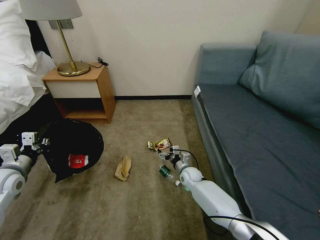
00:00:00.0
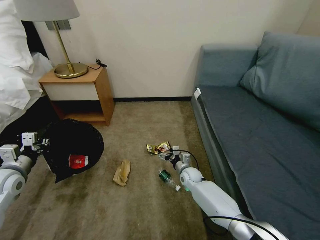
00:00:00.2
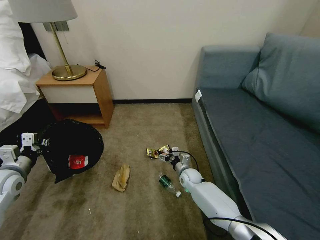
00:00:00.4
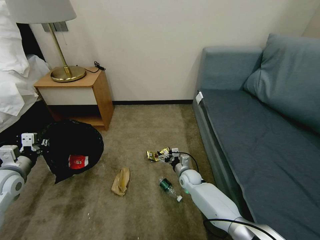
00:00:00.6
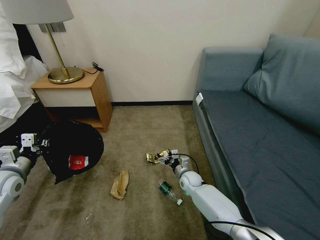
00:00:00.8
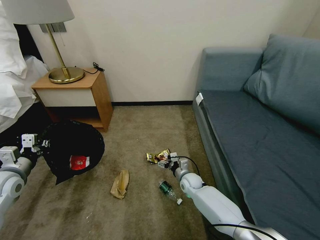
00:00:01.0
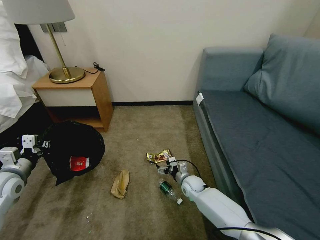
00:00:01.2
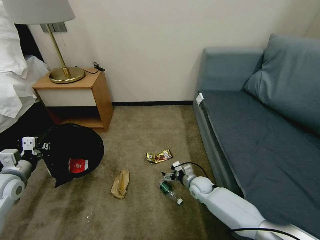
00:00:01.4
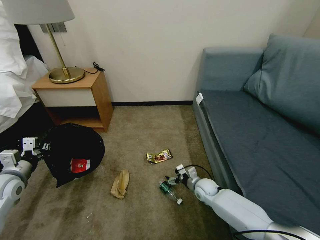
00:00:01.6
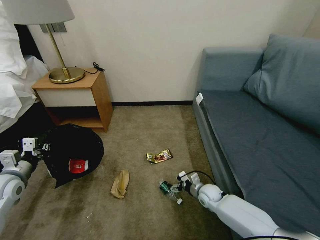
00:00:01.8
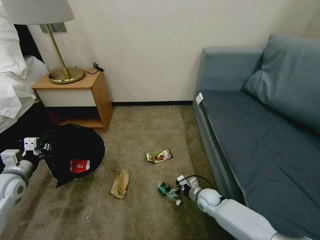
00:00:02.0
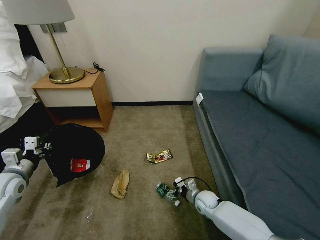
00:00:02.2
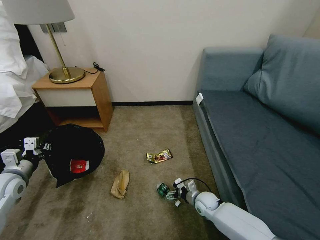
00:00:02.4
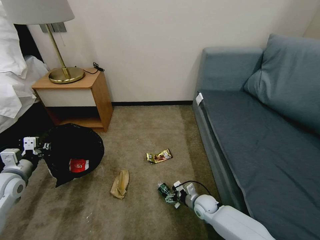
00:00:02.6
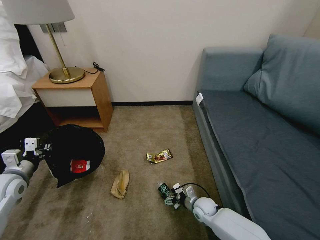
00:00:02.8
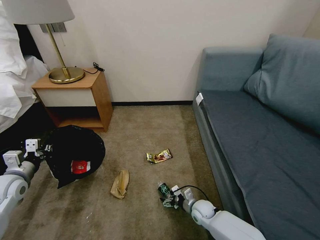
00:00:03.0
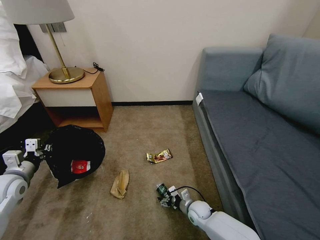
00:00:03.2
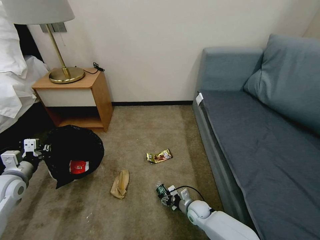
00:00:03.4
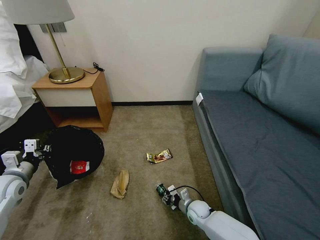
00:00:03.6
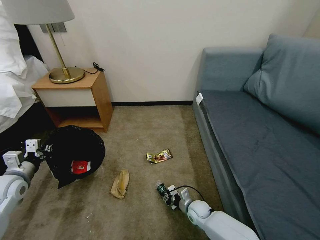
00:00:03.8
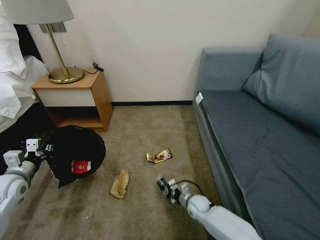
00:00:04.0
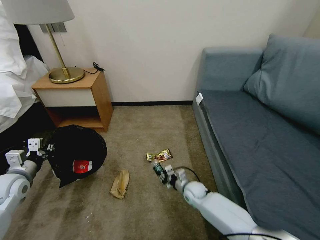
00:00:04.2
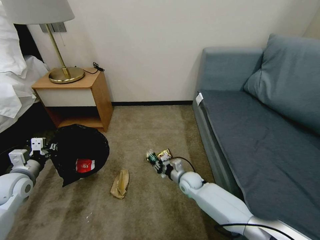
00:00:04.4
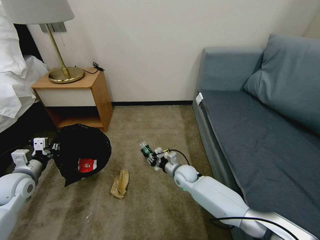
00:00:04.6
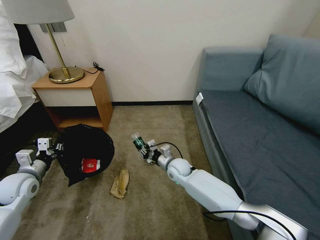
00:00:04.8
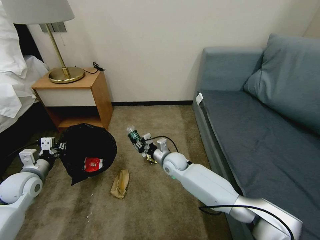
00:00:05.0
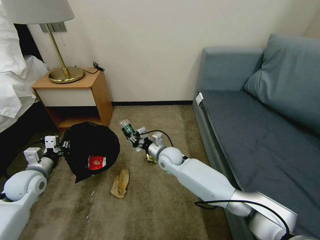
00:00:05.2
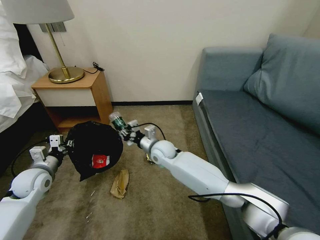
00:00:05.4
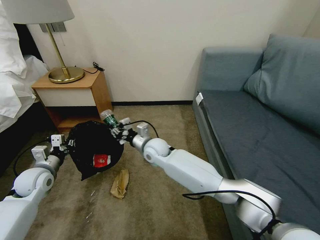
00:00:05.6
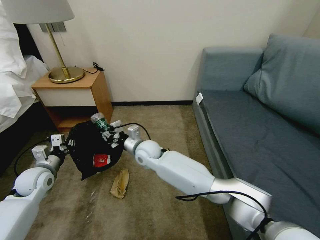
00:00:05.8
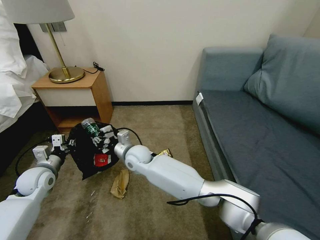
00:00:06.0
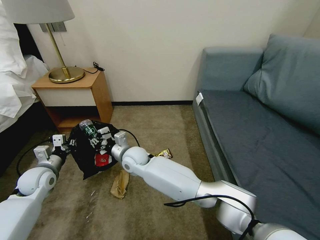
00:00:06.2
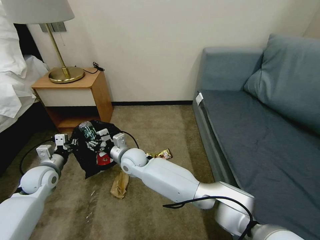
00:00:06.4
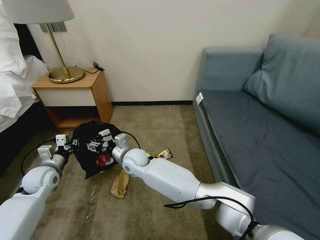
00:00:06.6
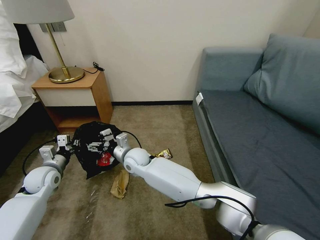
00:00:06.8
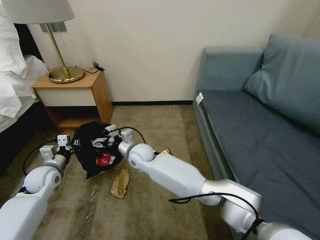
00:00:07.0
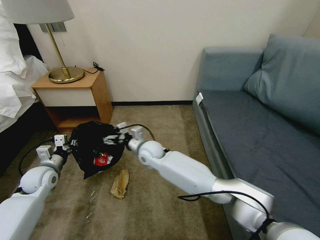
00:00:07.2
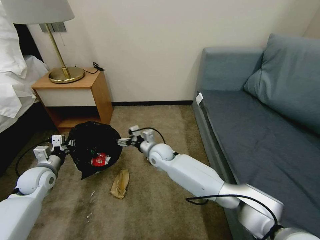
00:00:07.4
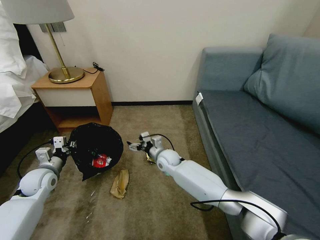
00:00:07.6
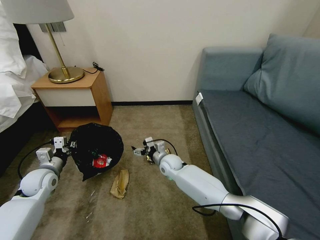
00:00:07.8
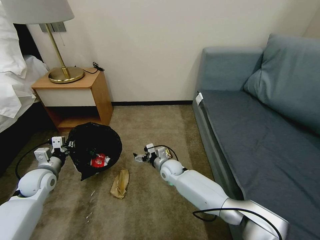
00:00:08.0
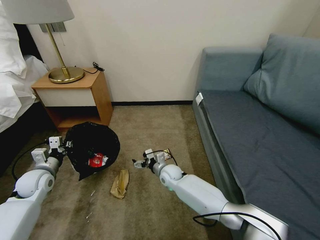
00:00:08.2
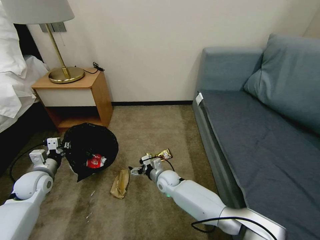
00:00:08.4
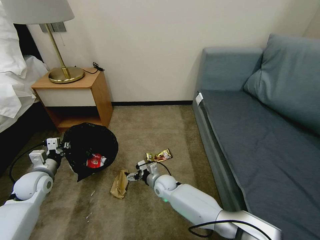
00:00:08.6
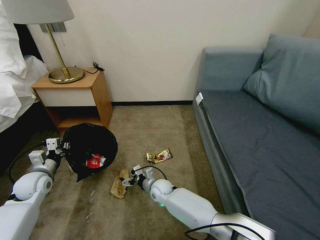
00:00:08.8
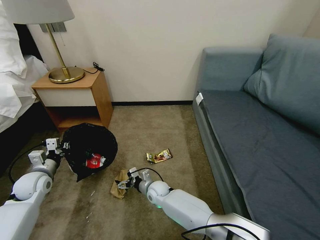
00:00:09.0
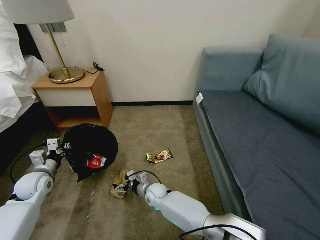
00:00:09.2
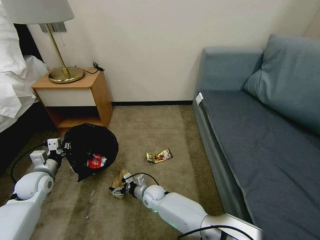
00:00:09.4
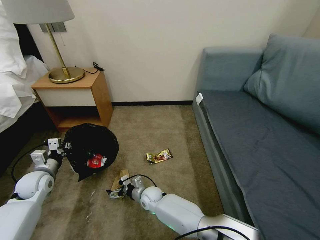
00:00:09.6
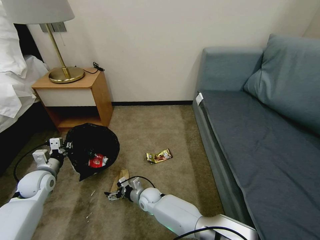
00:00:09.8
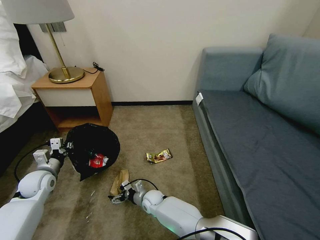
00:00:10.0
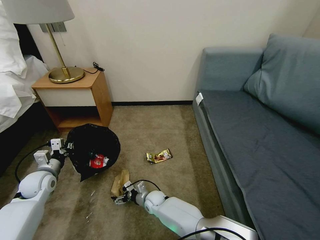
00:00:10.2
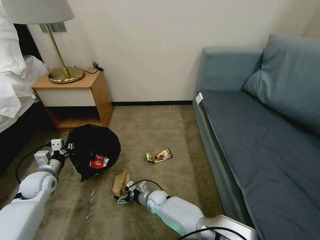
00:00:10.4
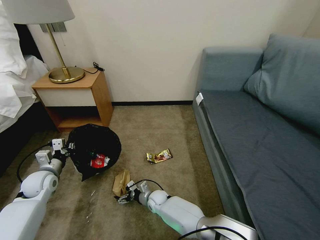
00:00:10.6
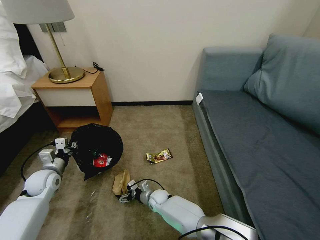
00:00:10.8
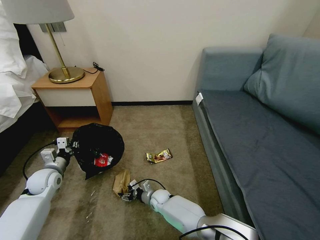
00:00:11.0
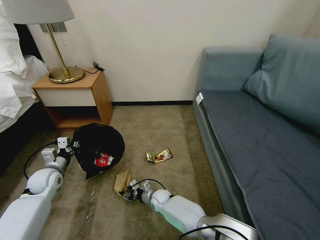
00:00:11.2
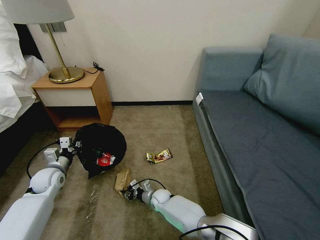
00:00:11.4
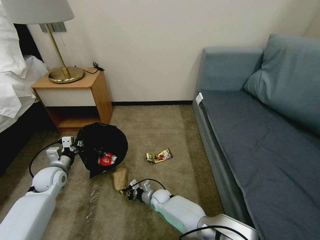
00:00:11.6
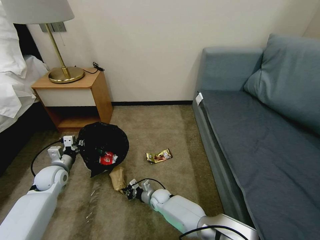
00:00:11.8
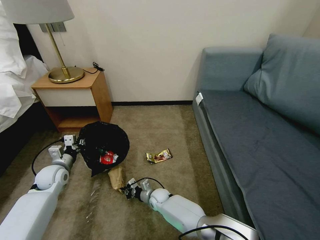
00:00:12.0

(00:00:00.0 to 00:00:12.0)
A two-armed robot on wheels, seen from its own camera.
Task of the whole recording: Pick up the trash bin, then pick up the garbage on the floor and place it into the trash bin.
00:00:00.0 - 00:00:01.6: The right gripper heads to the right and backward, covering some 10 cm.
00:00:01.6 - 00:00:03.0: The right gripper goes roughly 10 cm backward and downward.
00:00:03.0 - 00:00:04.4: The right gripper goes approximately 15 cm forward, upward and to the left, and closes.
00:00:04.4 - 00:00:06.0: The left gripper ends up about 5 cm from where it was, while the right gripper heads to the left and upward, covering approximately 25 cm.
00:00:06.0 - 00:00:07.6: The right gripper goes about 15 cm to the right and downward, and opens.
00:00:07.6 - 00:00:09.0: The right gripper moves downward and backward, roughly 15 cm.
00:00:09.0 - 00:00:10.4: The right gripper heads downward, covering approximately 5 cm.
00:00:10.4 - 00:00:12.0: The right gripper closes up.

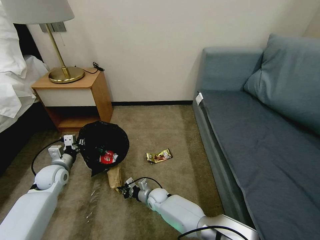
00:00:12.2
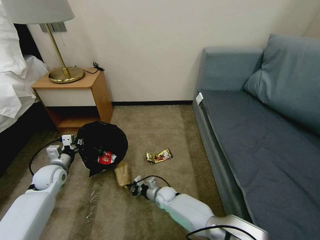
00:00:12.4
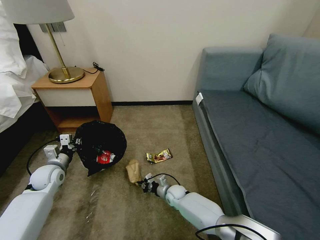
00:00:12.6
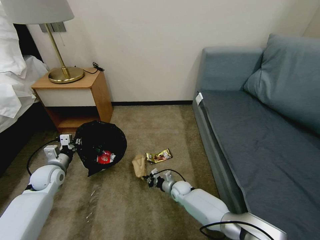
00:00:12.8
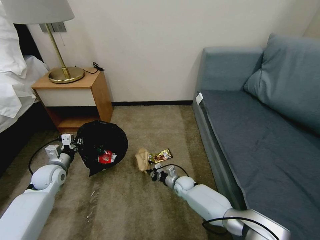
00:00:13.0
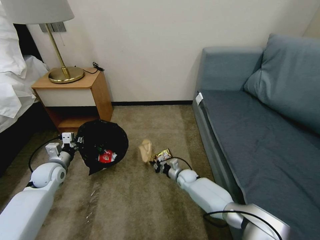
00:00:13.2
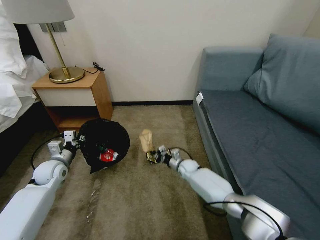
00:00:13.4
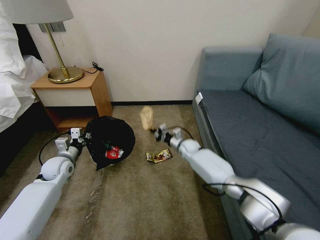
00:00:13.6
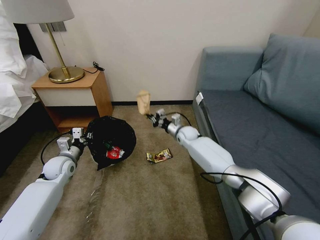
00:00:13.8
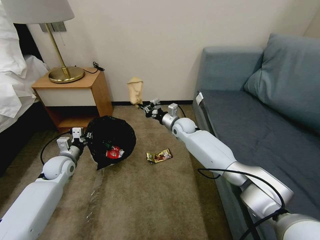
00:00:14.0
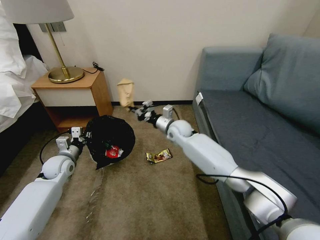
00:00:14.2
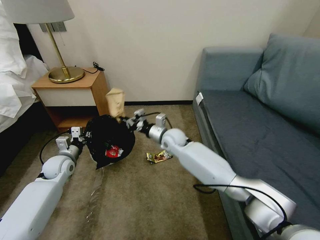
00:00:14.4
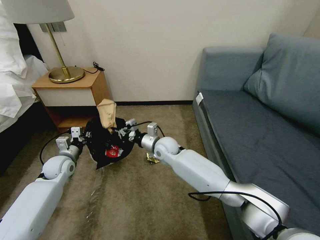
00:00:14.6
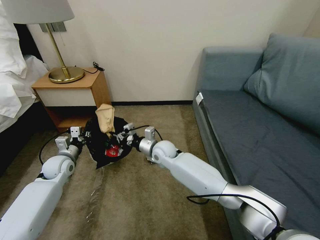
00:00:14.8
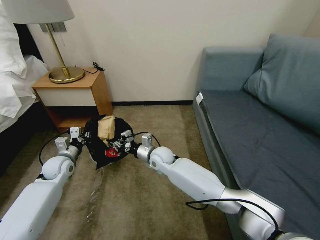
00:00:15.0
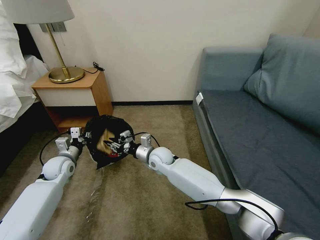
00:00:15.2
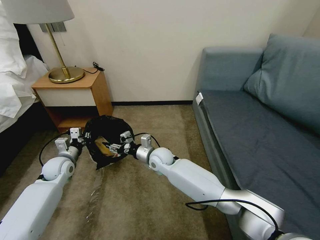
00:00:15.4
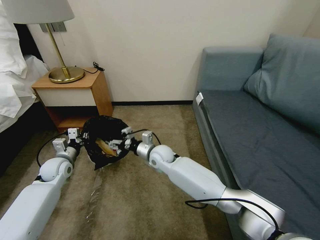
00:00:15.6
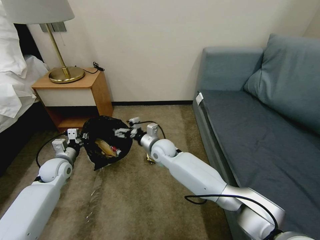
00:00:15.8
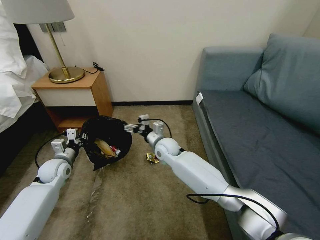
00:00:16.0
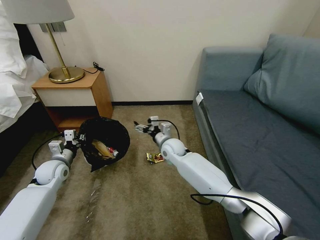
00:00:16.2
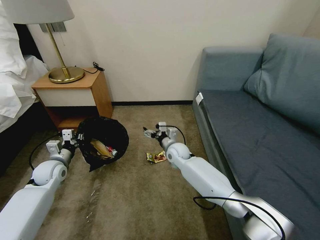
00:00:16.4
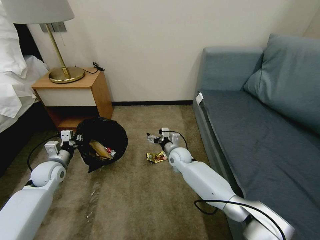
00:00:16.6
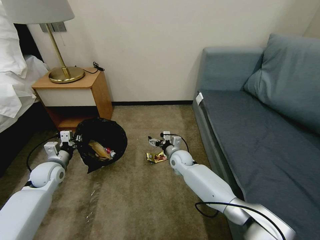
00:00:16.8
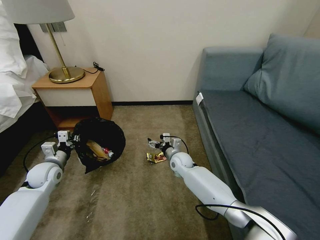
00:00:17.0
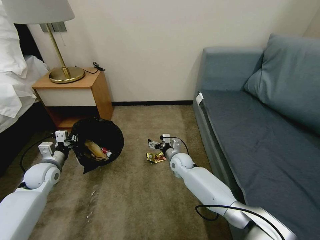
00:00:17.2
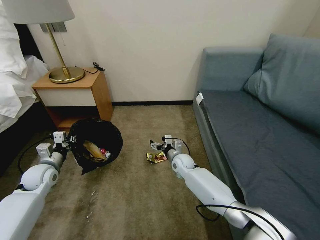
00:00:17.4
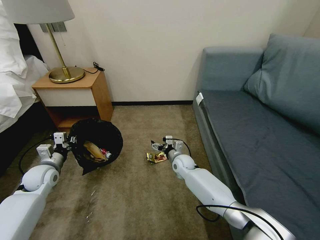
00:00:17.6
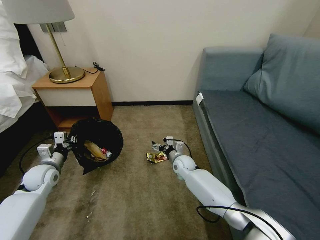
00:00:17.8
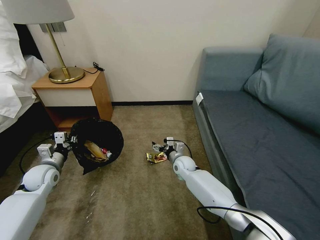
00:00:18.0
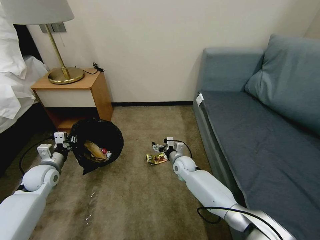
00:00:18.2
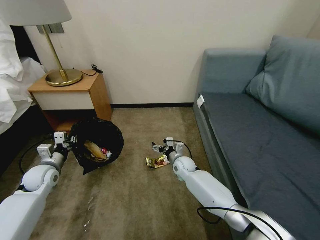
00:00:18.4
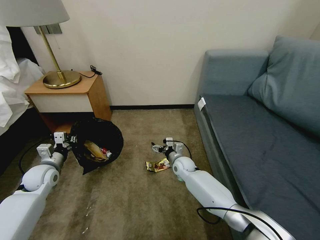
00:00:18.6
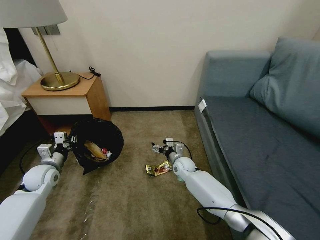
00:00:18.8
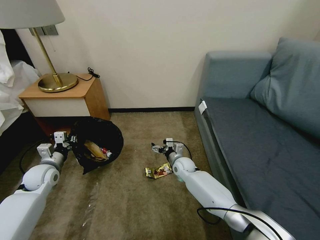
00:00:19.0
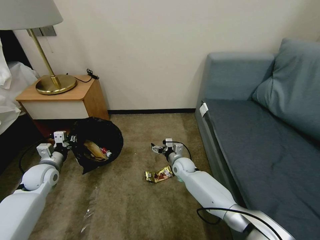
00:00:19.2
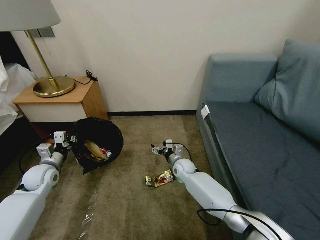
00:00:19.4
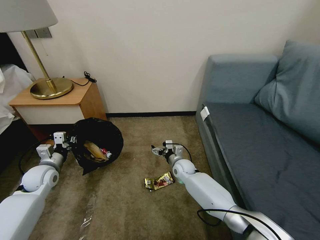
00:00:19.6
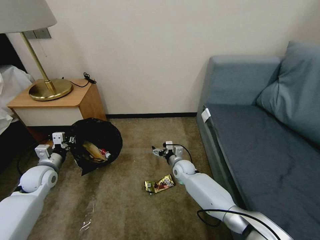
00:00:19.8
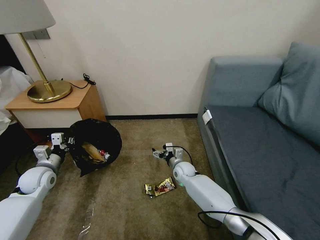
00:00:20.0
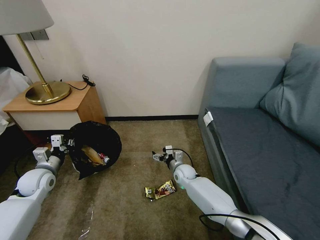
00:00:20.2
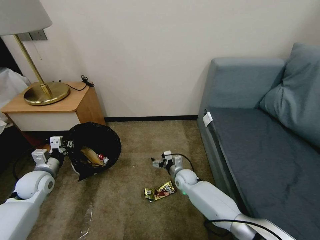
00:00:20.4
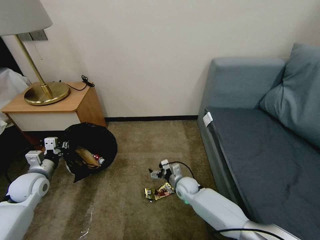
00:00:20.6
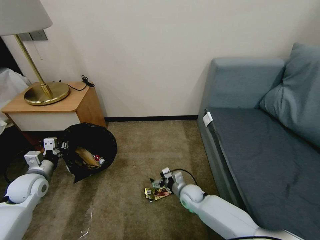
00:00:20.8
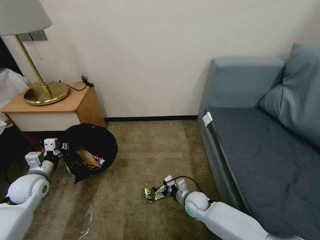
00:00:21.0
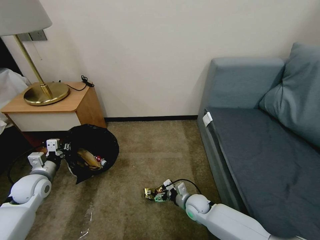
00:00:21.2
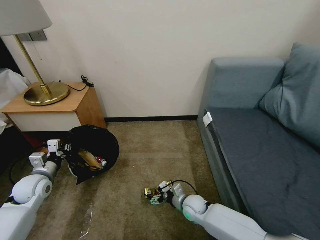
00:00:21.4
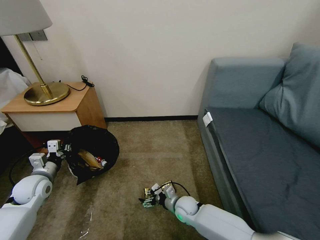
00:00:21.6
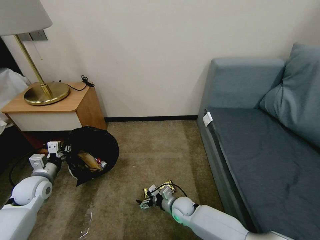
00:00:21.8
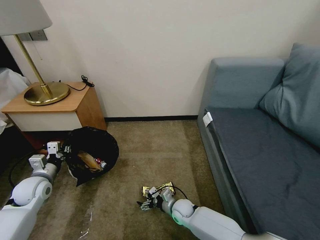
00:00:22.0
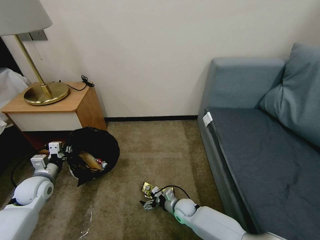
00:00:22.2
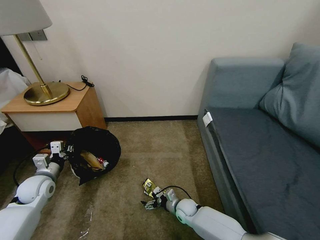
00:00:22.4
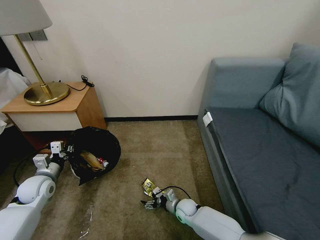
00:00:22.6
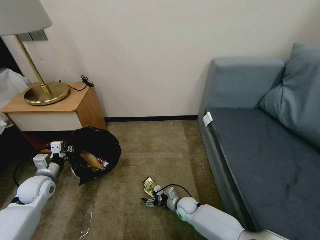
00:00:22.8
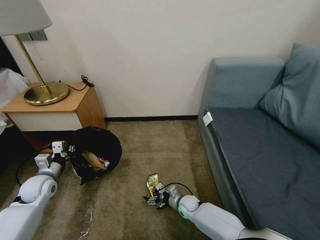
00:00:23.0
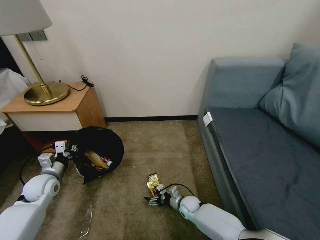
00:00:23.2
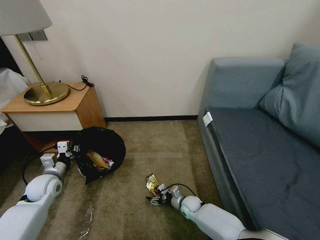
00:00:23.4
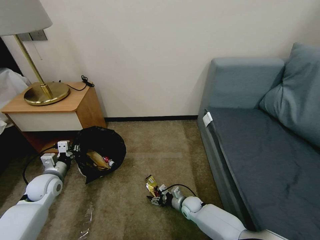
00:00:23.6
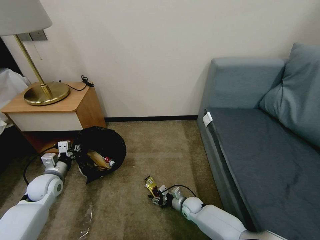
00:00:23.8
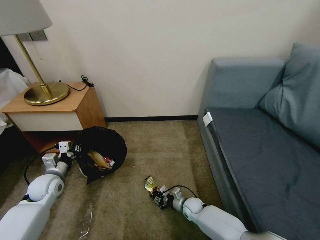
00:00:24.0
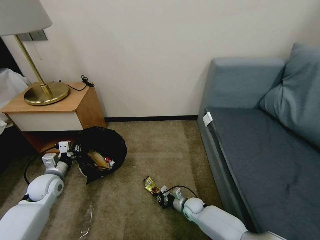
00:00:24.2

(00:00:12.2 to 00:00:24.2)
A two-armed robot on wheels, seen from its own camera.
Task of the whole recording: Pick up the trash bin, then pick up the garbage on the floor and place it into the trash bin.
00:00:12.2 - 00:00:13.8: The right gripper is displaced forward, upward and to the right by some 30 cm.
00:00:13.8 - 00:00:15.2: The right gripper moves to the left and backward, roughly 20 cm.
00:00:15.2 - 00:00:16.6: The right gripper moves to the right, about 10 cm, and opens.
00:00:16.6 - 00:00:18.2: The right gripper moves roughly 5 cm.
00:00:19.8 - 00:00:21.2: The right gripper moves backward, about 15 cm.
00:00:21.2 - 00:00:22.6: The right gripper moves downward, about 5 cm.
00:00:22.6 - 00:00:24.2: The right gripper closes.
